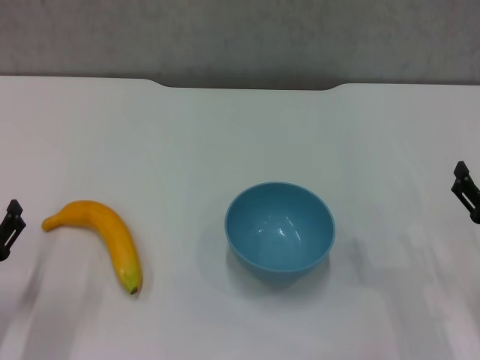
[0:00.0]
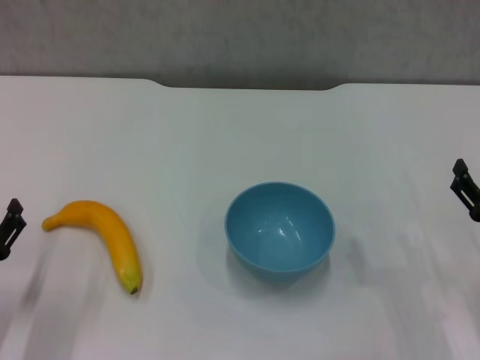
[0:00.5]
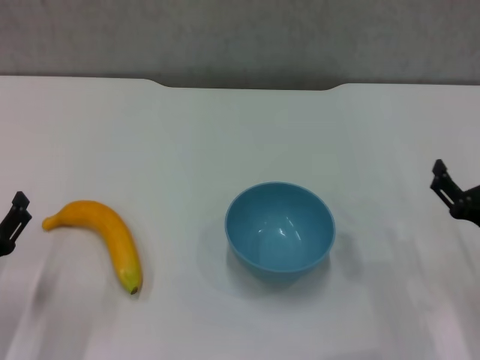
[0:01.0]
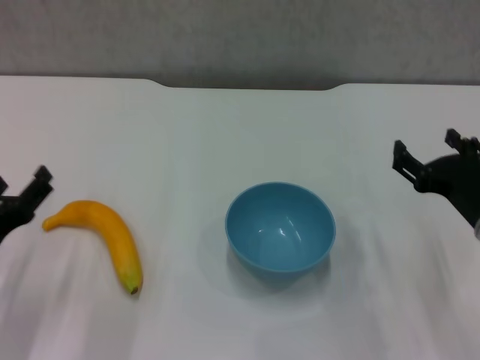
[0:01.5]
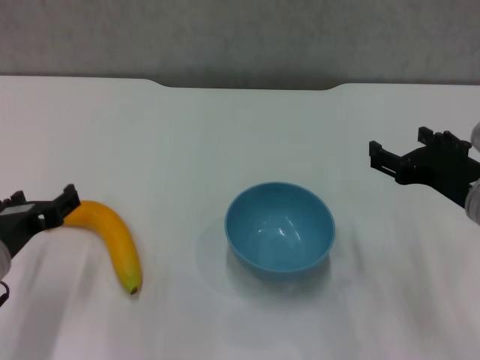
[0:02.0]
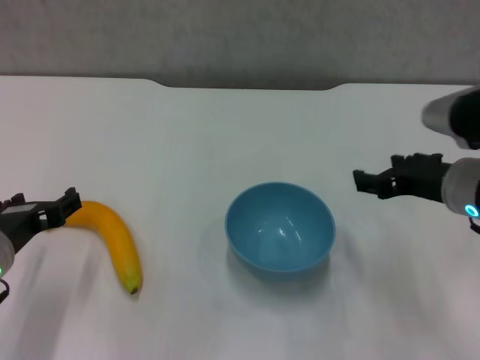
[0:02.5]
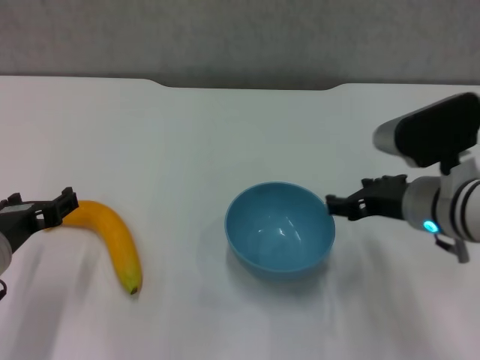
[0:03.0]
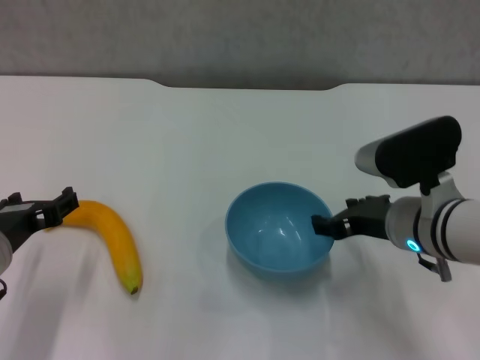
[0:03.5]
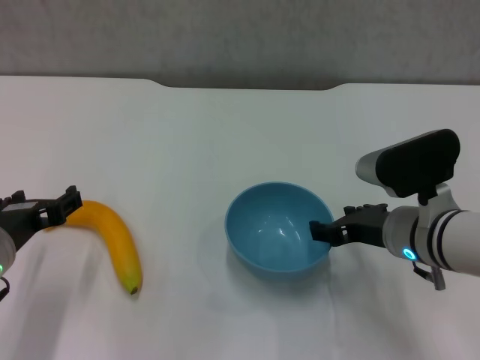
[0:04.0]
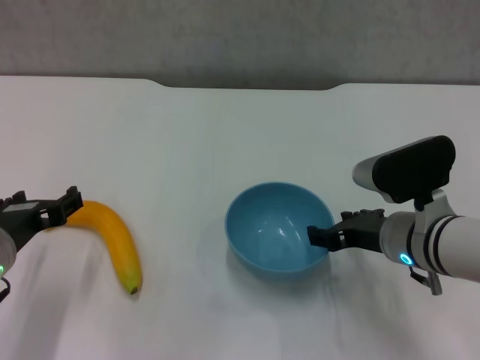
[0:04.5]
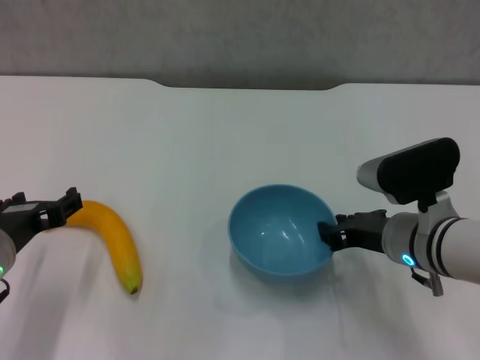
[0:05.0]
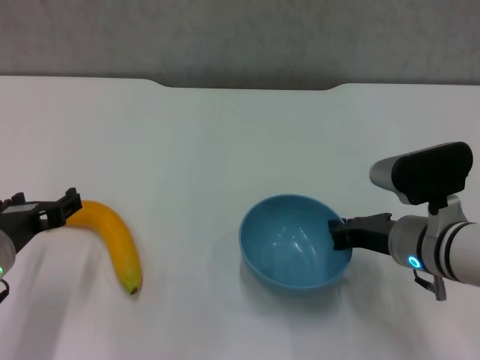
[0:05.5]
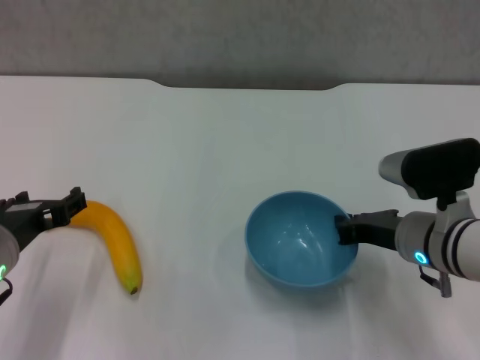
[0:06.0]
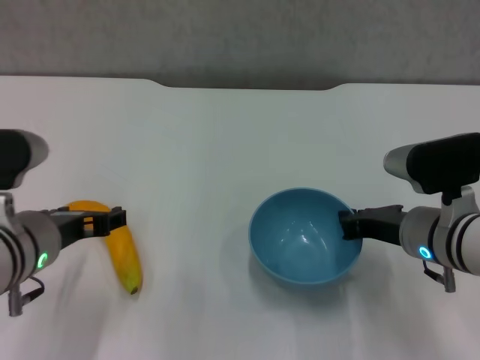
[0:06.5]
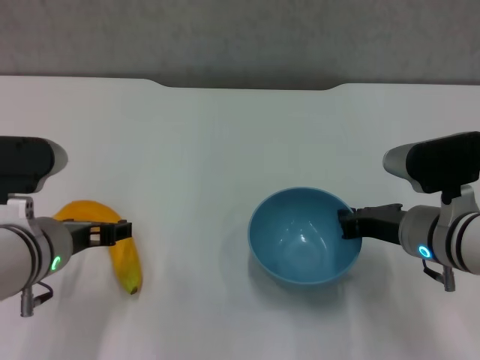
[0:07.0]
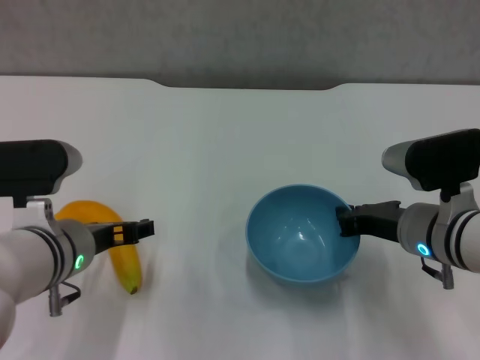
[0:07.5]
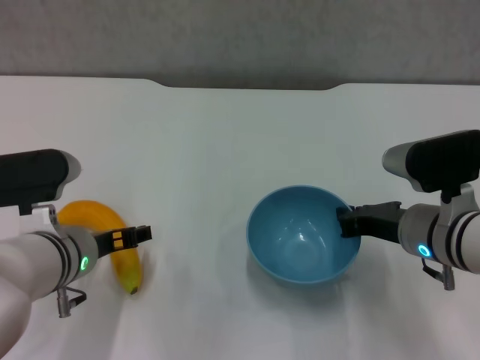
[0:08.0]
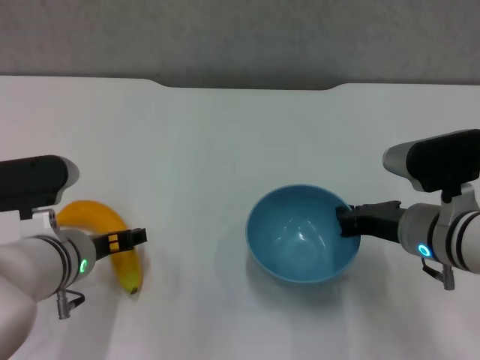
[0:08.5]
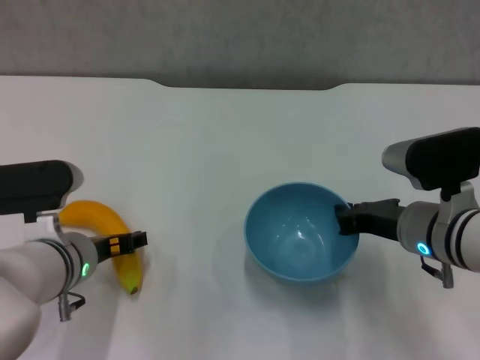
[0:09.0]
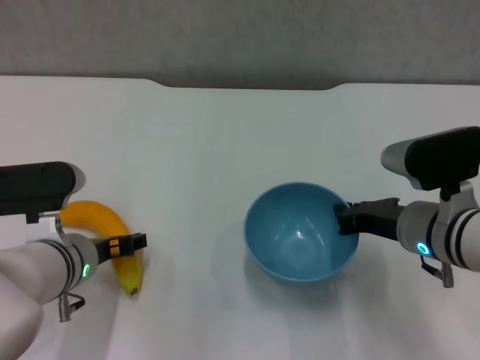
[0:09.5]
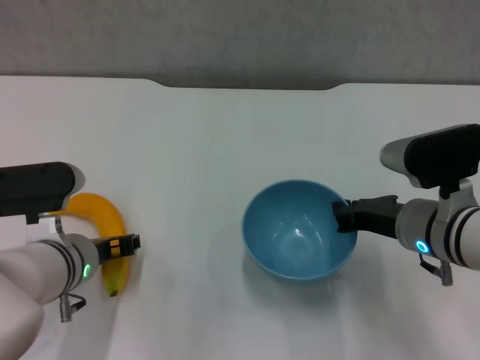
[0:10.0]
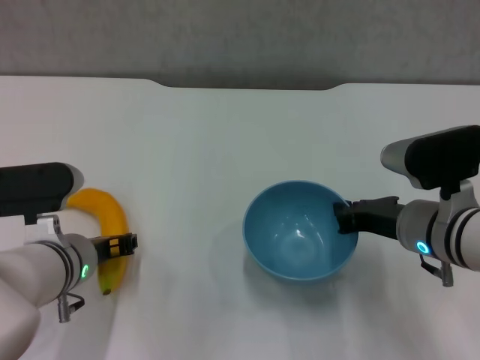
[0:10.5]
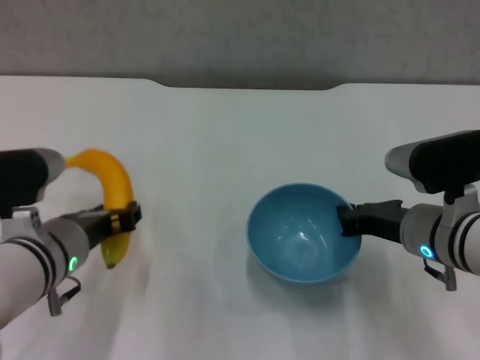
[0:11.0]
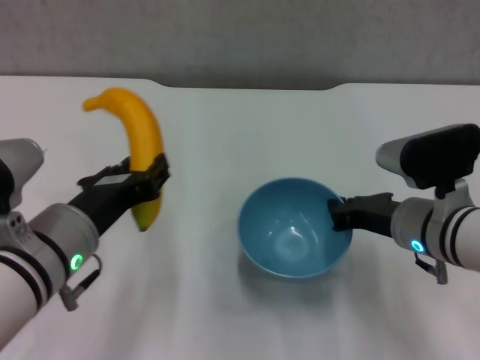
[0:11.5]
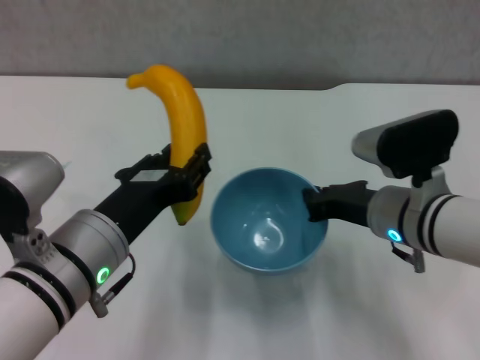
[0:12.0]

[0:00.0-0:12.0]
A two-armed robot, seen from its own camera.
Step, 0:00.0 to 0:05.0: Grasp the blue bowl with right gripper.
Step, 0:05.5 to 0:06.0: Lift the blue bowl with right gripper.
Step, 0:06.5 to 0:10.0: Grasp the banana with left gripper.
0:00.0 to 0:02.0: The right gripper heads upward, to the left and forward, covering some 15 cm, while the left gripper is displaced upward and to the right by some 10 cm.
0:02.0 to 0:04.0: The right gripper moves to the left, about 5 cm.
0:04.0 to 0:06.0: The right gripper closes.
0:06.0 to 0:08.0: The left gripper is displaced to the right by approximately 5 cm.
0:08.0 to 0:10.0: The left gripper closes.
0:10.0 to 0:12.0: The left gripper travels upward and backward by some 10 cm, and closes its fingers.

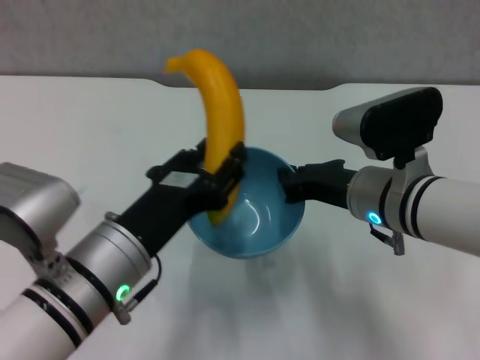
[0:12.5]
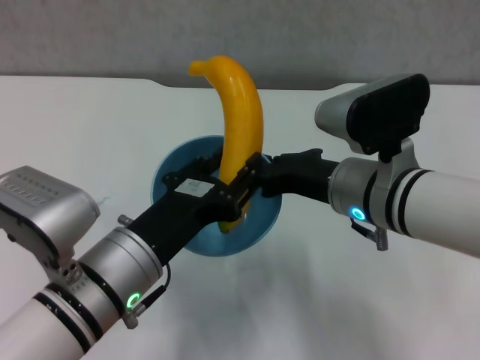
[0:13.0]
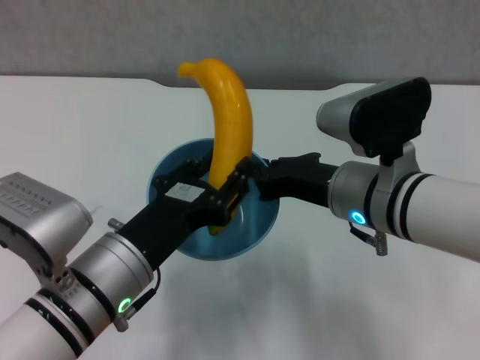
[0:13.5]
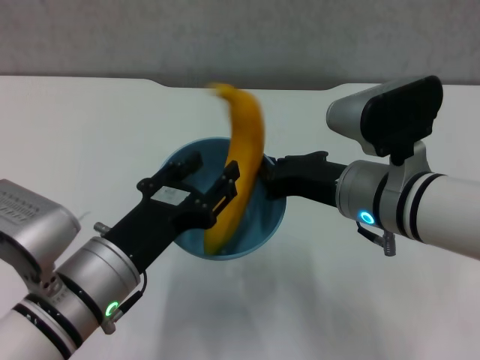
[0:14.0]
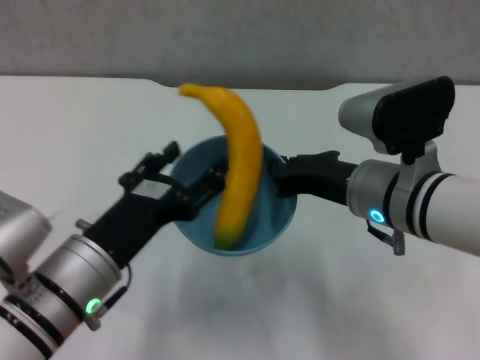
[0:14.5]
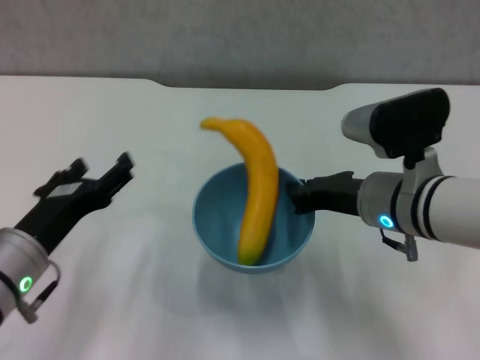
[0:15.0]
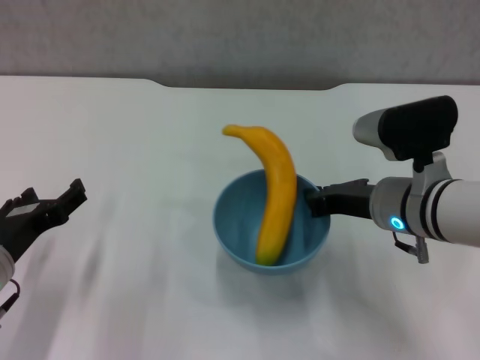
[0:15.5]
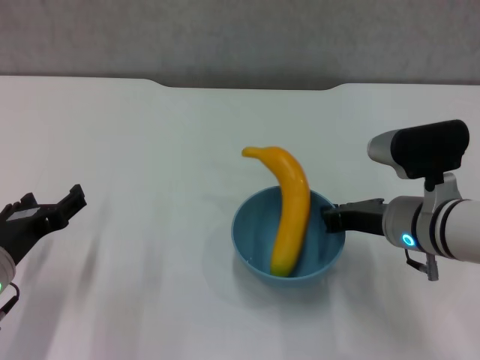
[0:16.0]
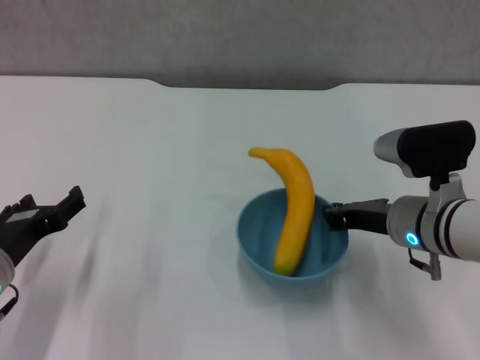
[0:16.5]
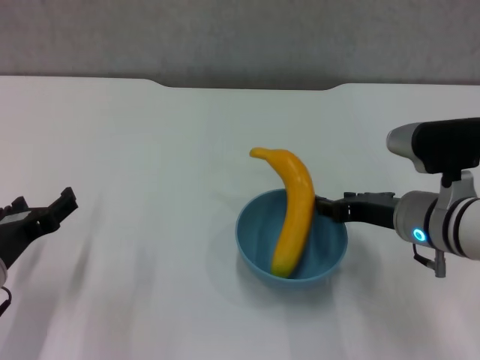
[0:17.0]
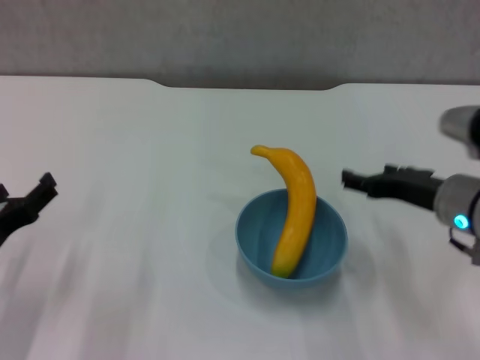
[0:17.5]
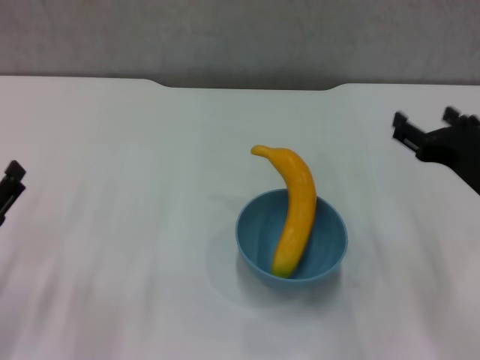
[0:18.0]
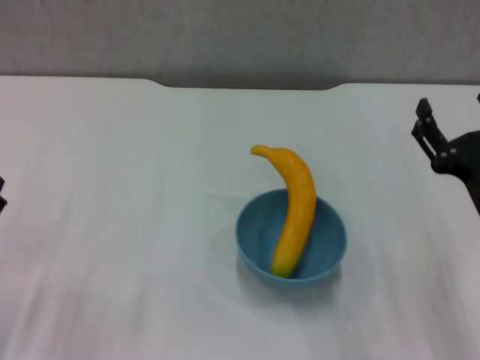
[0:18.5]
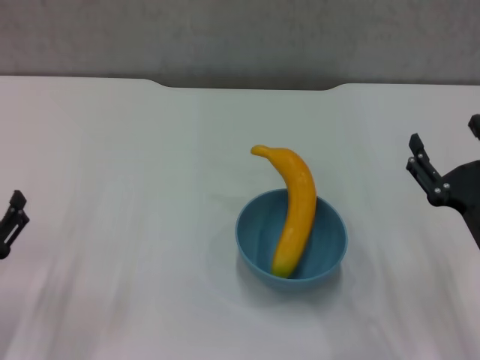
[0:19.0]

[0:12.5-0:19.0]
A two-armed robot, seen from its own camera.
Step, 0:14.5 to 0:17.0: Place the bowl on the table with right gripper.
0:12.5 to 0:14.5: The left gripper opens its fingers.
0:14.5 to 0:17.0: The right gripper heads to the right and downward, covering about 10 cm; the left gripper heads to the left, covering some 10 cm, and opens.
0:17.0 to 0:19.0: The right gripper travels backward and to the right by roughly 10 cm, and opens up; the left gripper changes place by approximately 10 cm.
